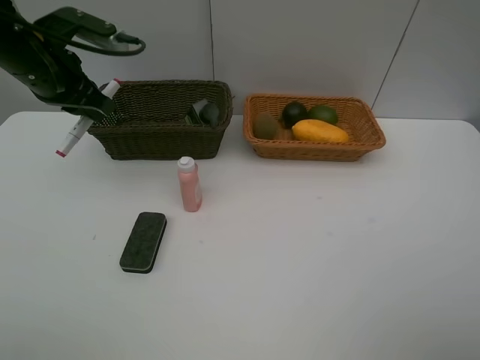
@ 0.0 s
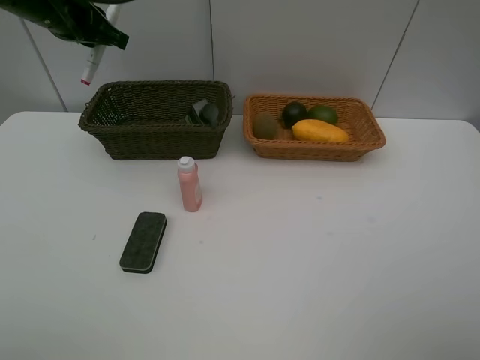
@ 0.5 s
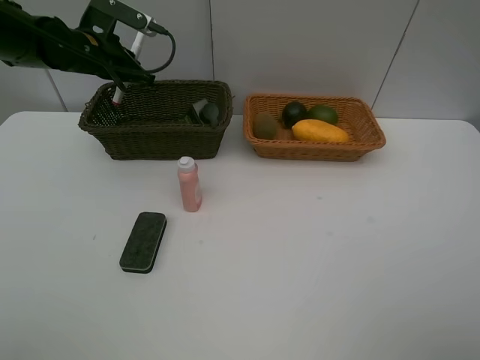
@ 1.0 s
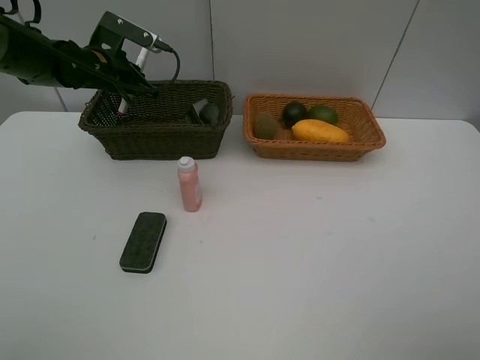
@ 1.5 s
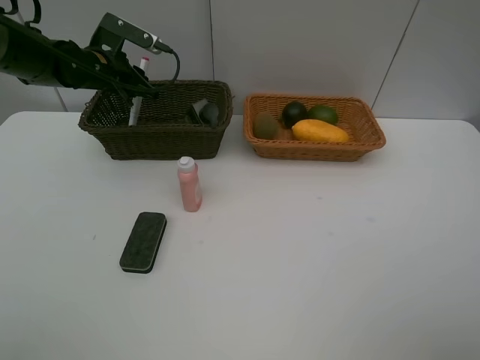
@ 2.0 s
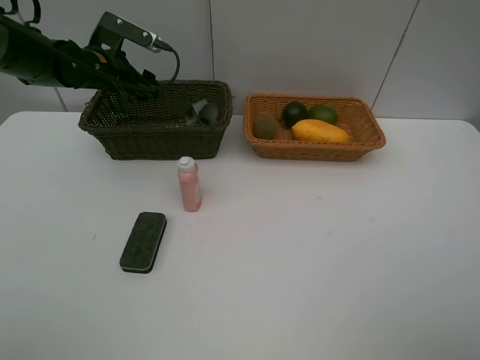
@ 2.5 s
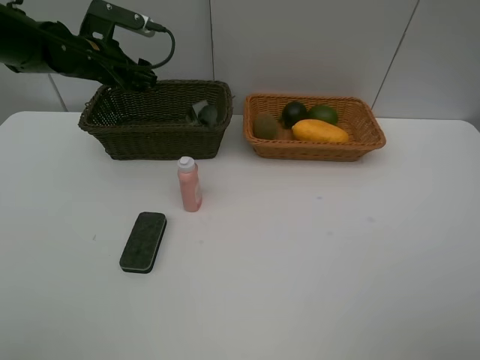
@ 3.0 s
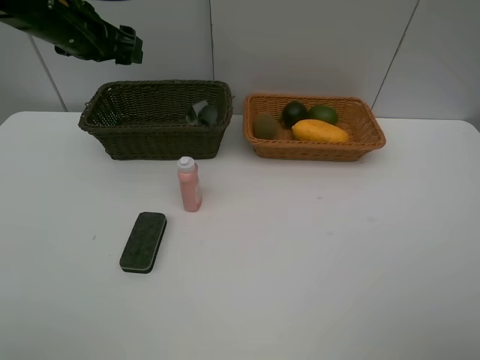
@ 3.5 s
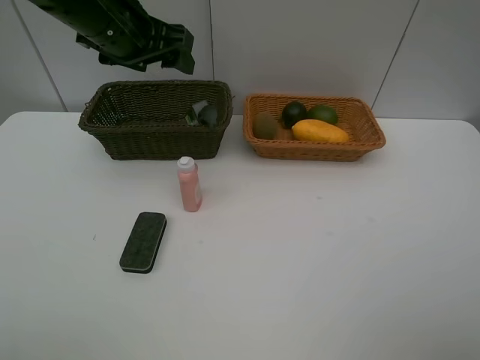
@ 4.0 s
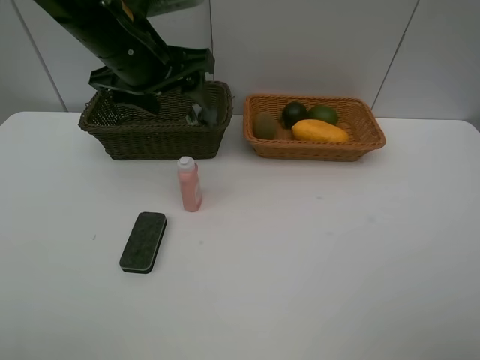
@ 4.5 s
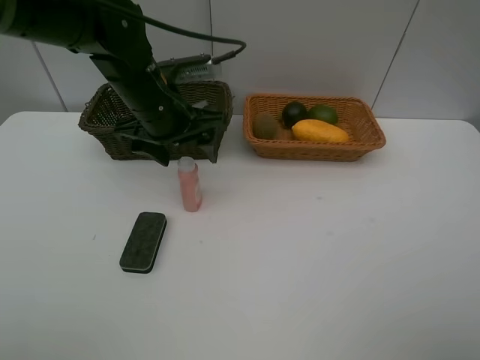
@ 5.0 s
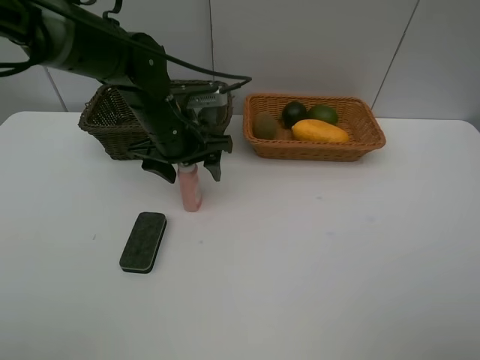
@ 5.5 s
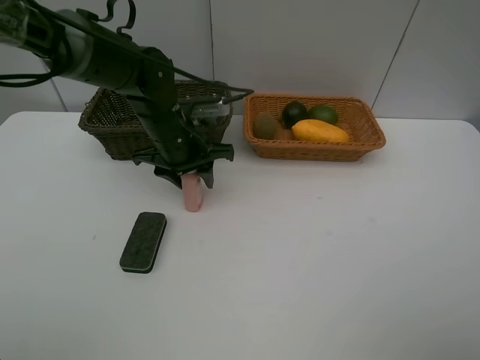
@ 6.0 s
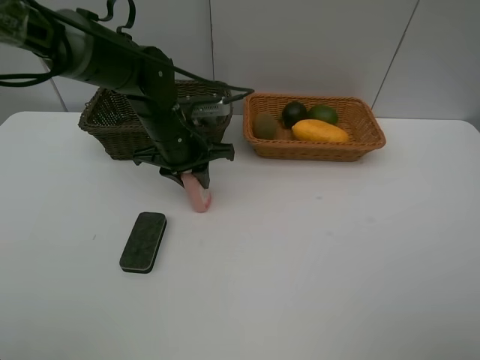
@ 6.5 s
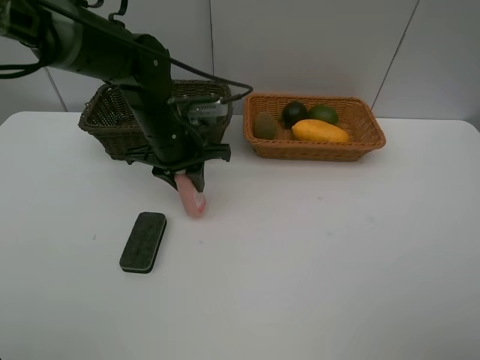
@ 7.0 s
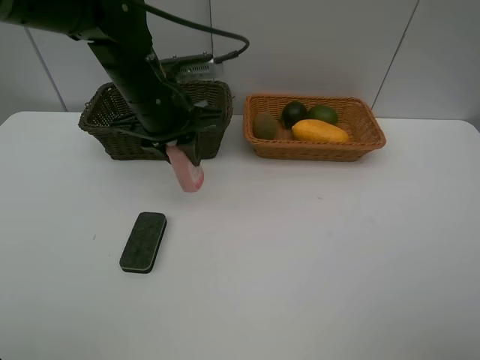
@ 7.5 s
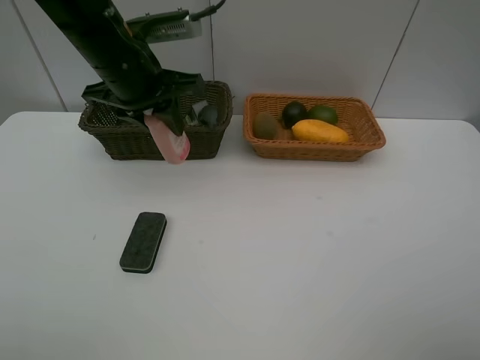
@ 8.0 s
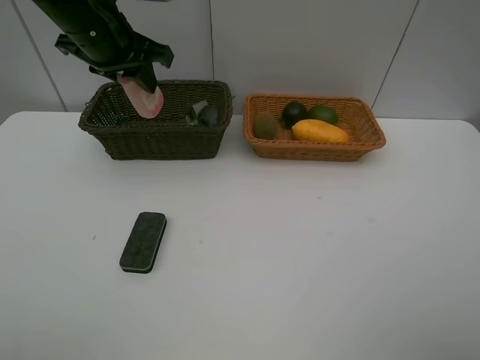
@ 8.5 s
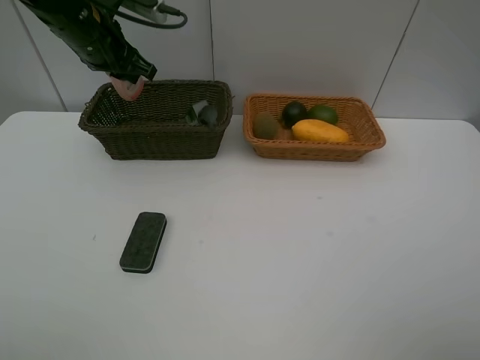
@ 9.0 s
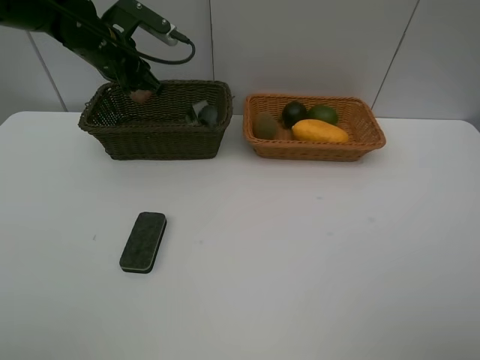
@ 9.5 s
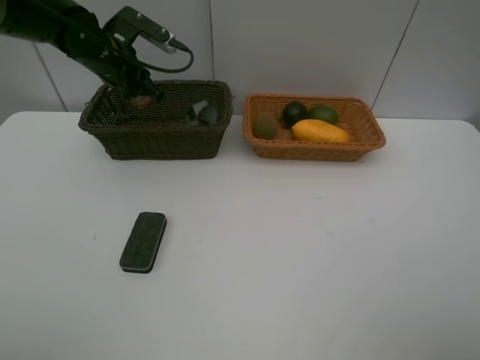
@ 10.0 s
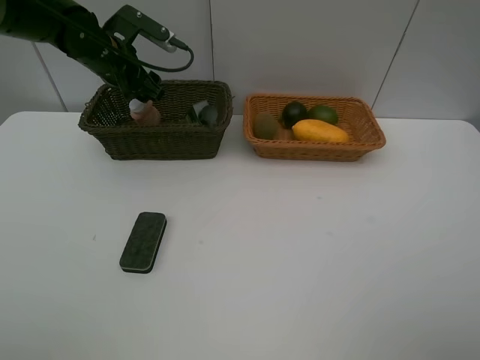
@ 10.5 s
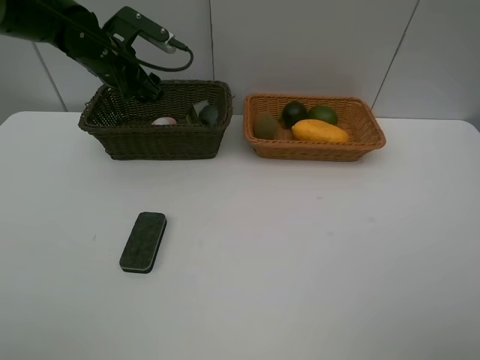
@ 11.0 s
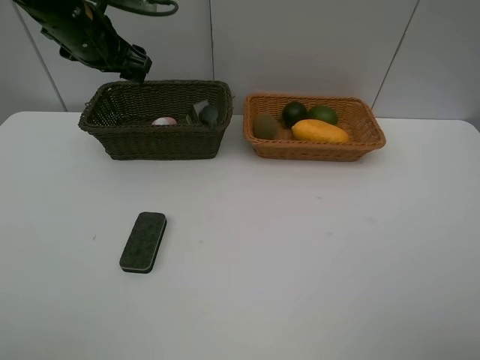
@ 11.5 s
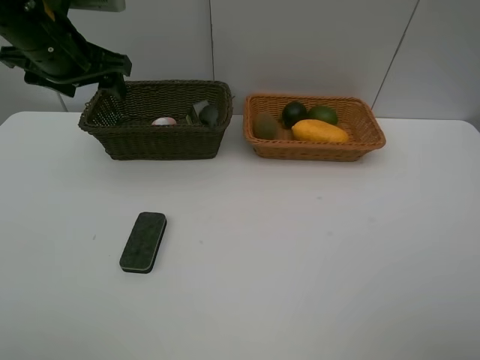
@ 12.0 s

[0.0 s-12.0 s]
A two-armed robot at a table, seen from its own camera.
Task of the whole recording: Place multiple objects separately in different baskets.
Step, 0.0 to 2.0 s: Place the red marker in the dark basket with left gripper.
Step, 2.5 to 7.0 s: Pick up the laundry detergent with left gripper.
Step, 7.5 to 11.0 s: Place the laundry detergent in the dark basket with left gripper.
0.0 to 2.0 s: The left gripper is displaced forward and downward by some 15 cm, and opens up.
2.0 to 4.0 s: The left gripper goes about 15 cm upward, backward and to the right, and opens up.
4.0 to 6.0 s: The left gripper heads downward, covering roughly 15 cm, and closes up.
6.0 to 8.0 s: The left gripper heads upward, covering some 10 cm.
8.0 to 10.0 s: The left gripper heads forward, to the left and downward, covering about 15 cm.
10.0 to 12.0 s: The left gripper goes about 10 cm backward and upward, and opens up.

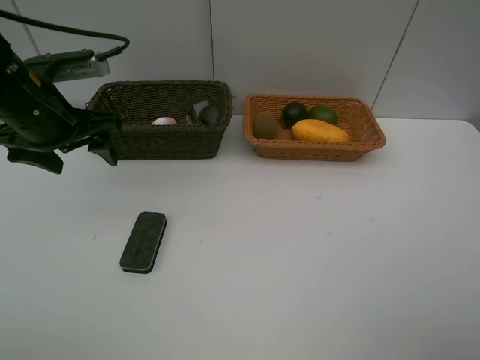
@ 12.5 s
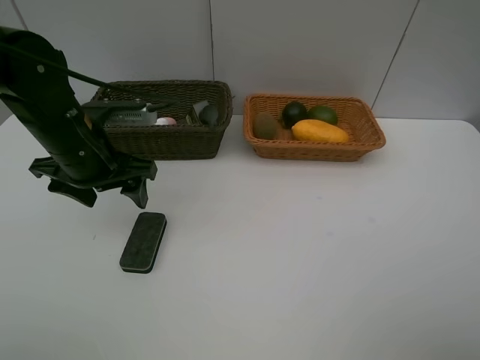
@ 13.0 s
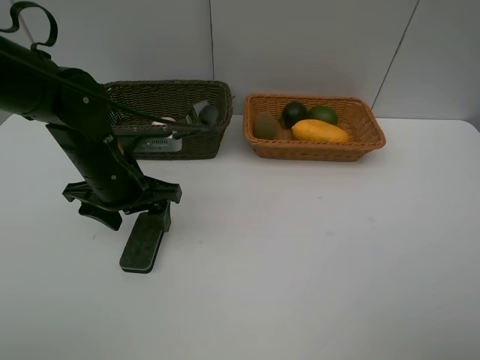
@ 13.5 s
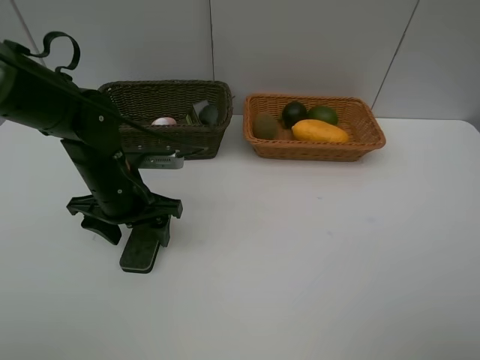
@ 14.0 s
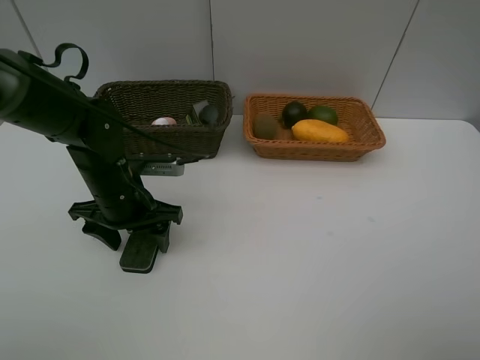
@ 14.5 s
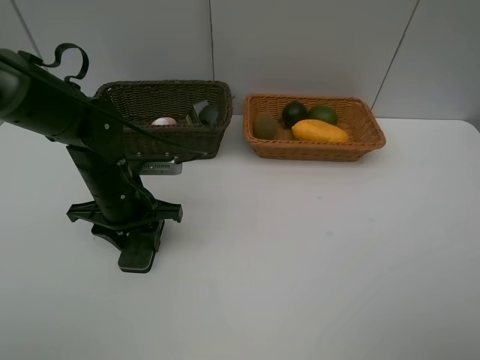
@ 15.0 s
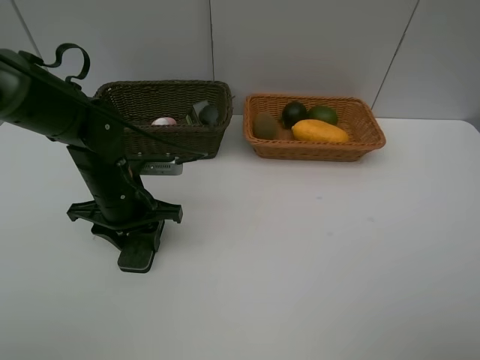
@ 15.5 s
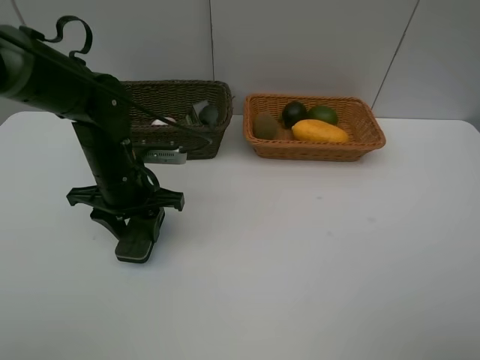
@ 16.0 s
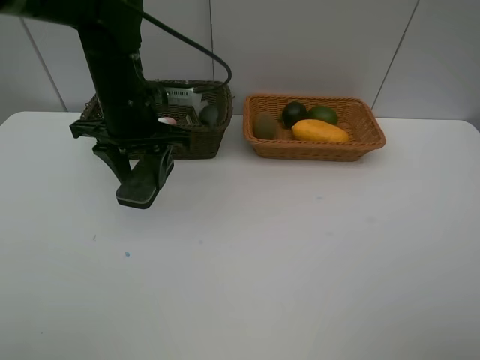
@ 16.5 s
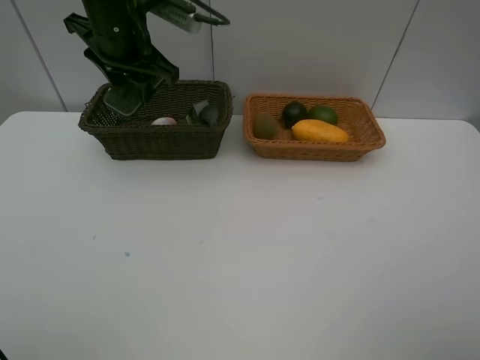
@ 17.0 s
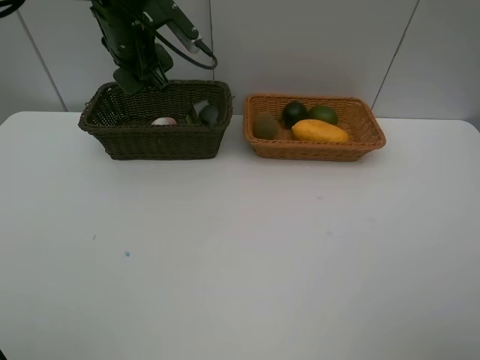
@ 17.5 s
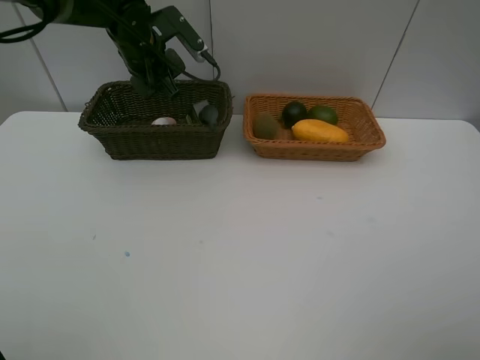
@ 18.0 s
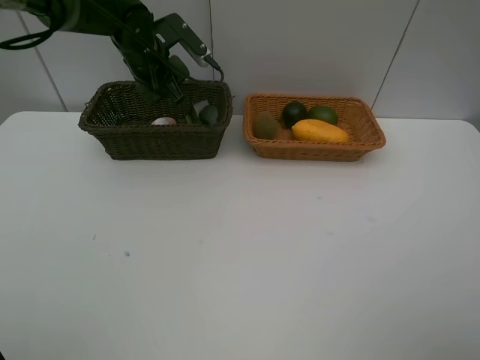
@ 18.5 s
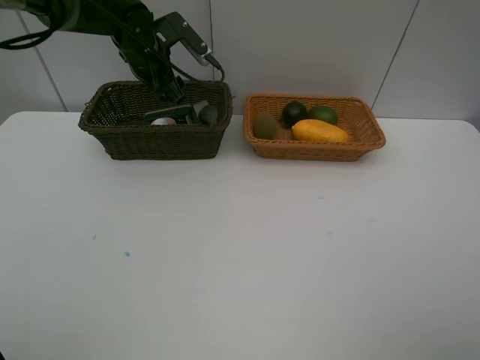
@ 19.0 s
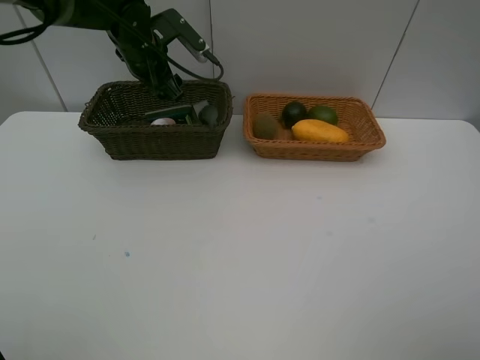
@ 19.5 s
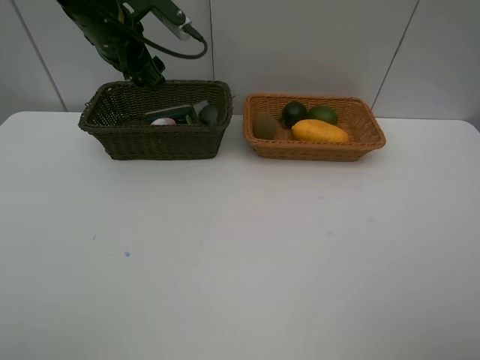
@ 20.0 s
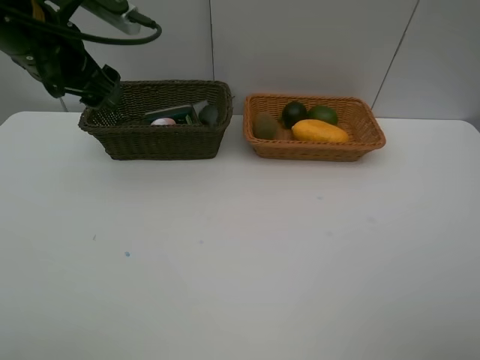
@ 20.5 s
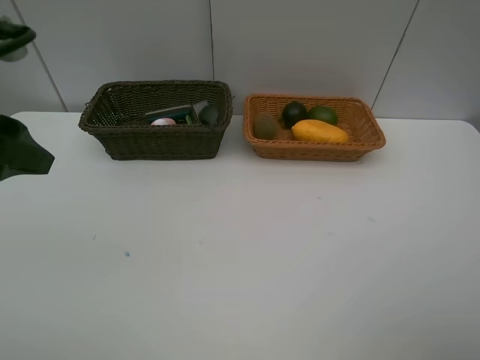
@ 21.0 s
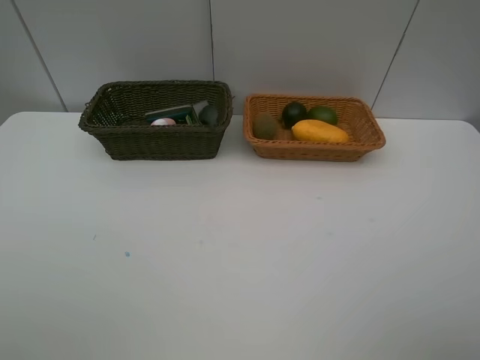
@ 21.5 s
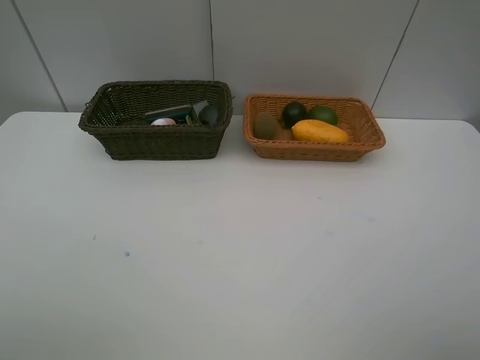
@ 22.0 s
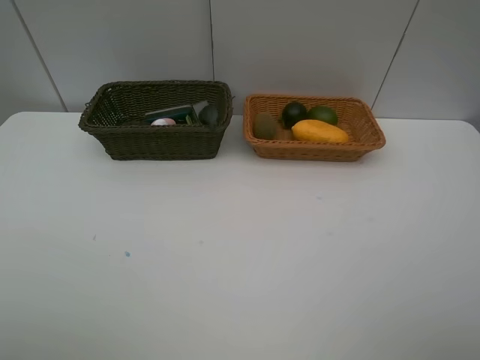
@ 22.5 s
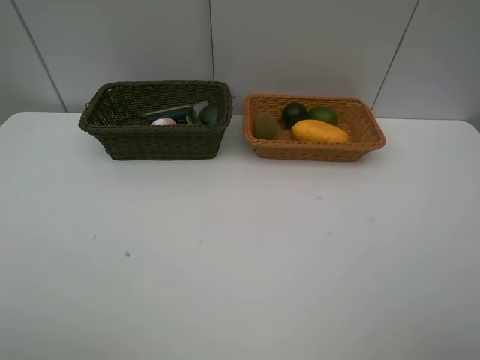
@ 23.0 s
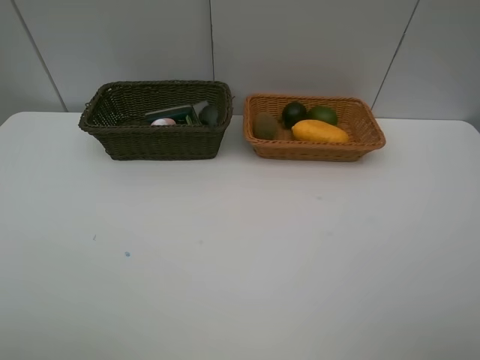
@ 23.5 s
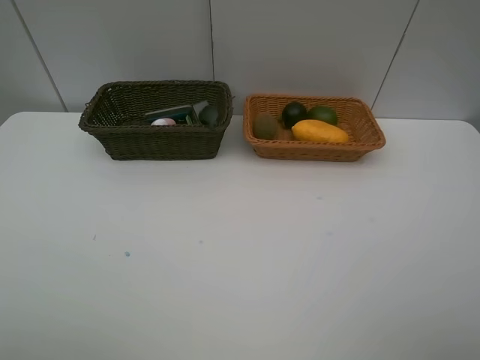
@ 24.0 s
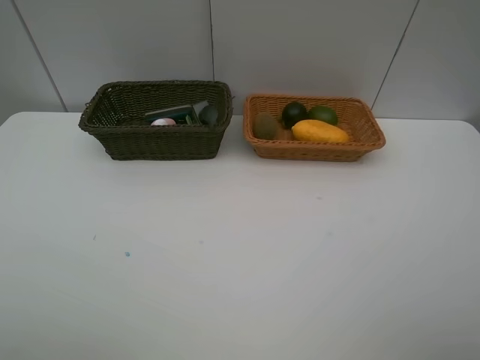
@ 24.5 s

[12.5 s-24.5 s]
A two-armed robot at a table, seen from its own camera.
Task of the whole recording: Place multiple objects separately in different baskets.
Step, 12.5 to 16.0 s: Pick up blackboard eraser with left gripper.
Step, 16.5 to 18.5 s: Place the blackboard eraser in the dark basket with left gripper.
12.5 to 14.5 s: The left gripper travels downward and to the right by some 15 cm.
14.5 to 16.5 s: The left gripper shifts approximately 10 cm upward and forward, and closes.
16.5 to 18.5 s: The left gripper is displaced forward by approximately 15 cm.
18.5 to 20.5 s: The left gripper heads backward and upward, covering roughly 20 cm, and opens its fingers.
20.5 to 22.5 s: The left gripper shifts about 30 cm backward.
